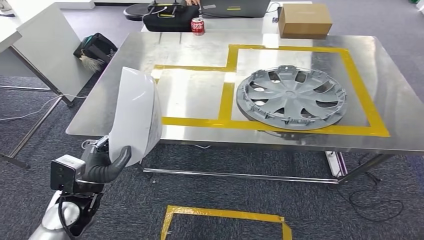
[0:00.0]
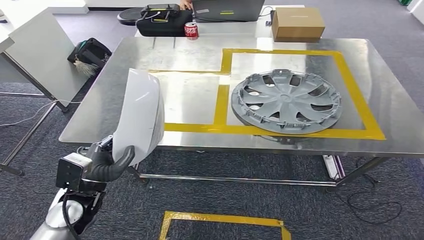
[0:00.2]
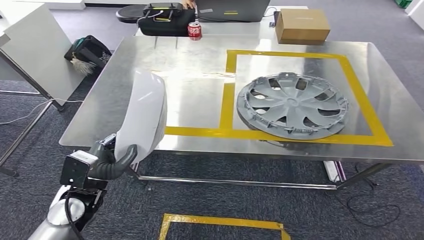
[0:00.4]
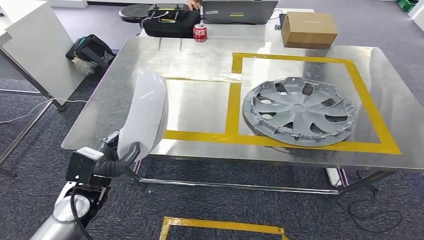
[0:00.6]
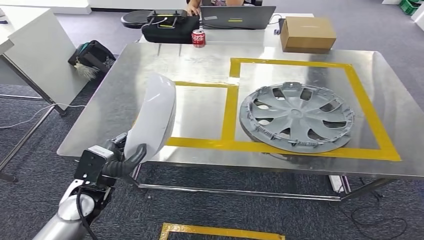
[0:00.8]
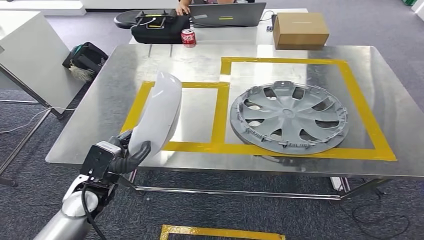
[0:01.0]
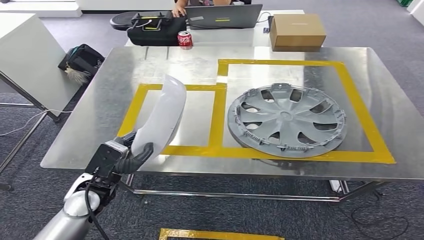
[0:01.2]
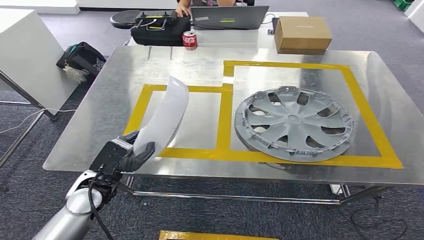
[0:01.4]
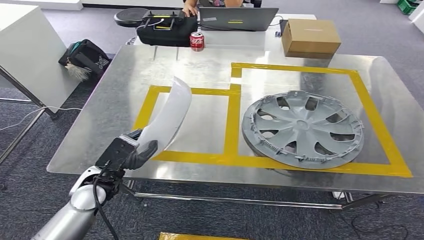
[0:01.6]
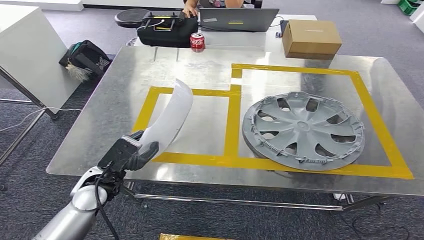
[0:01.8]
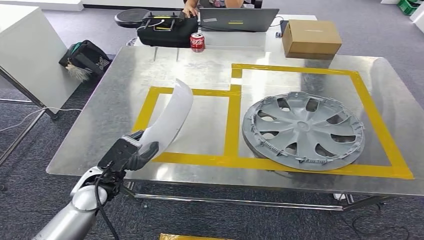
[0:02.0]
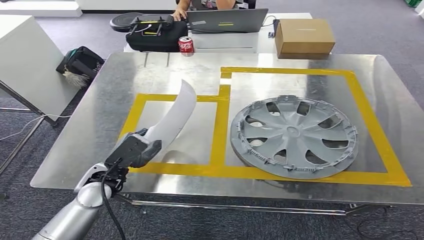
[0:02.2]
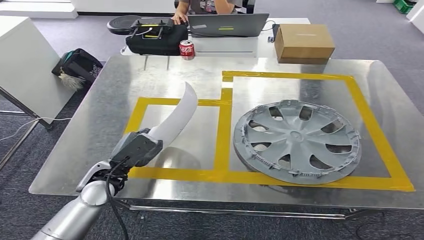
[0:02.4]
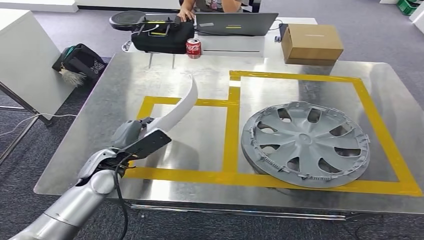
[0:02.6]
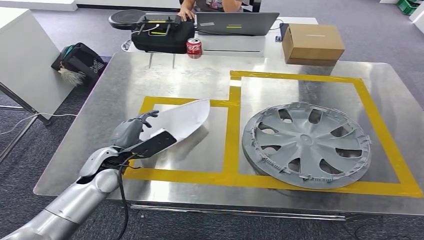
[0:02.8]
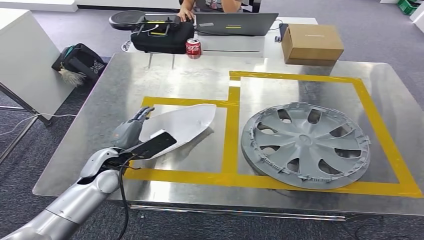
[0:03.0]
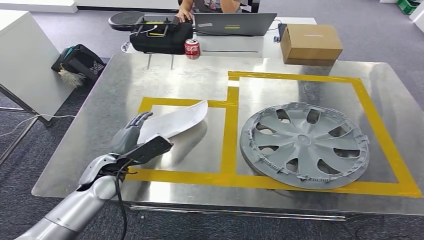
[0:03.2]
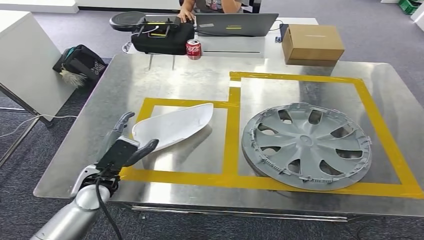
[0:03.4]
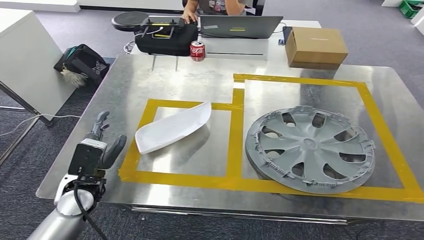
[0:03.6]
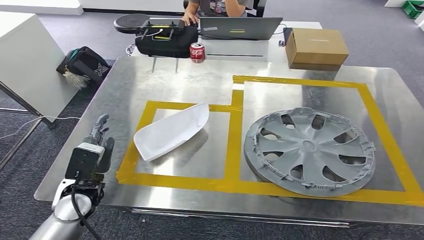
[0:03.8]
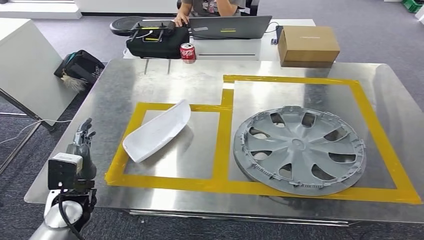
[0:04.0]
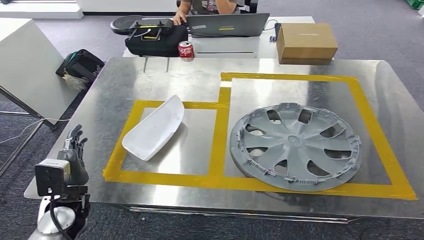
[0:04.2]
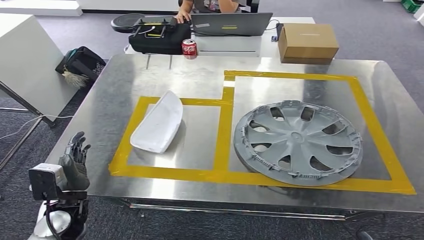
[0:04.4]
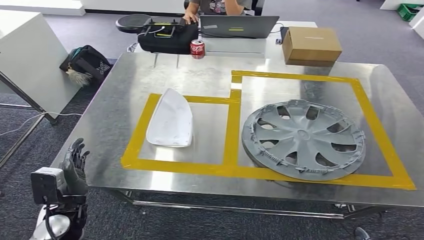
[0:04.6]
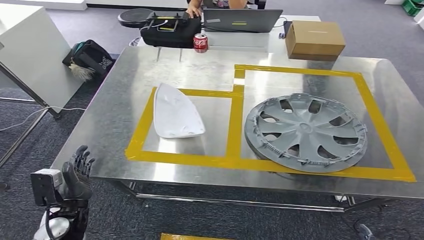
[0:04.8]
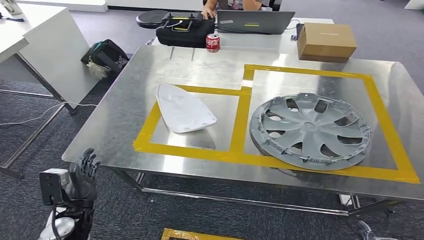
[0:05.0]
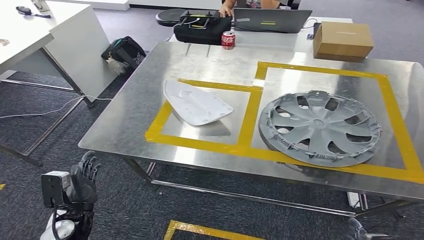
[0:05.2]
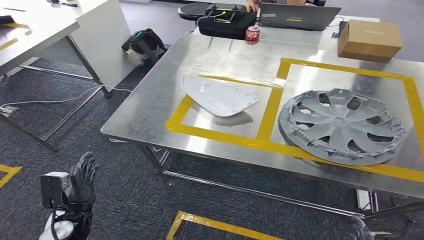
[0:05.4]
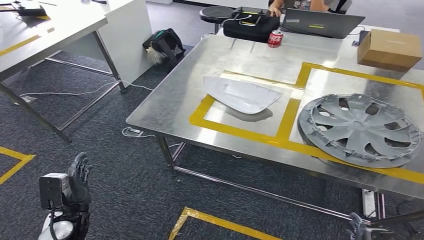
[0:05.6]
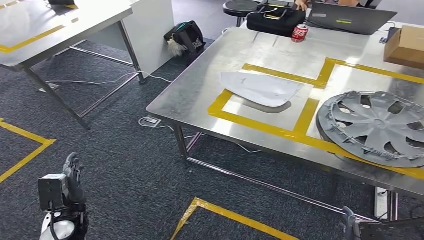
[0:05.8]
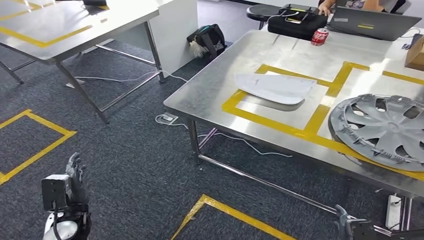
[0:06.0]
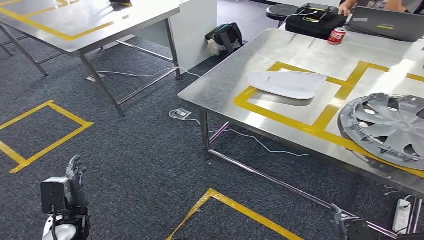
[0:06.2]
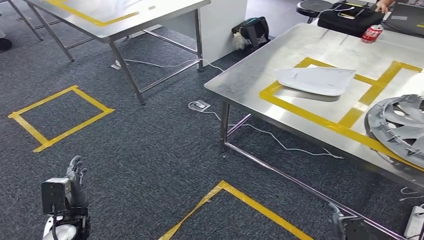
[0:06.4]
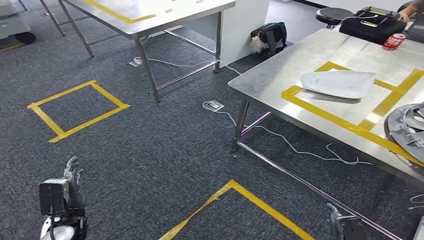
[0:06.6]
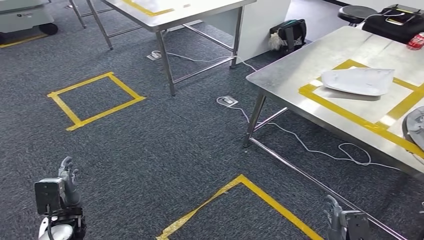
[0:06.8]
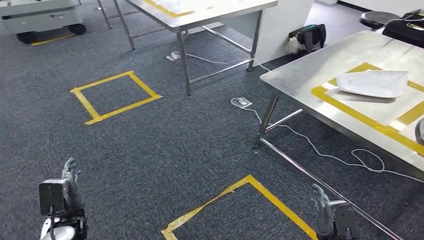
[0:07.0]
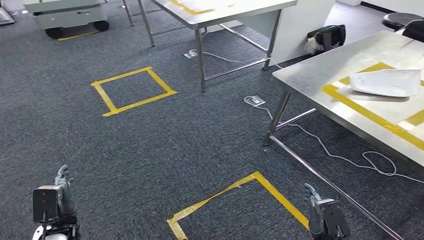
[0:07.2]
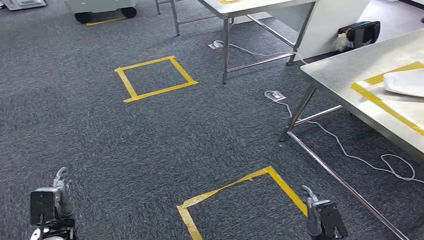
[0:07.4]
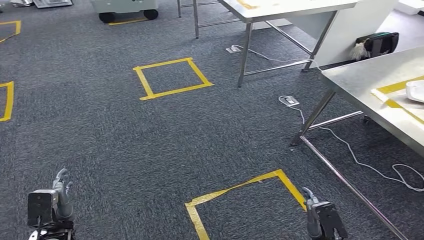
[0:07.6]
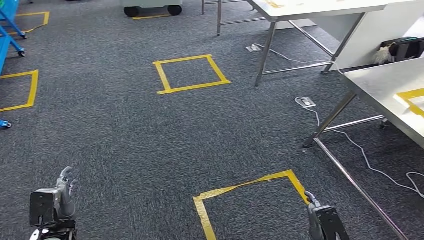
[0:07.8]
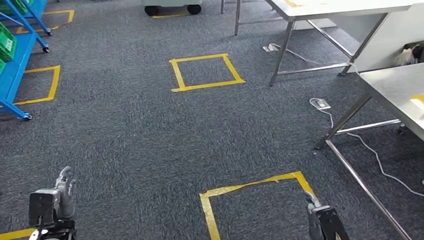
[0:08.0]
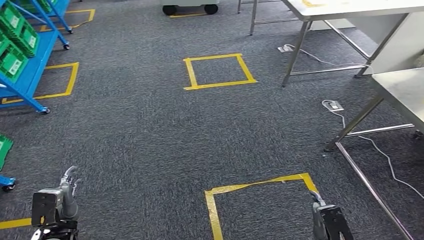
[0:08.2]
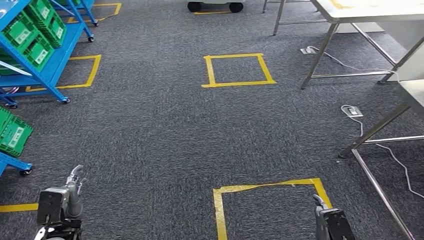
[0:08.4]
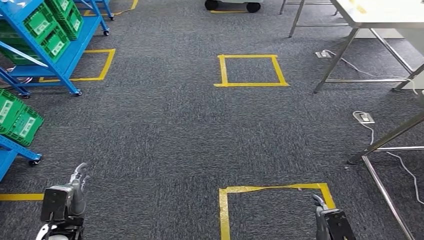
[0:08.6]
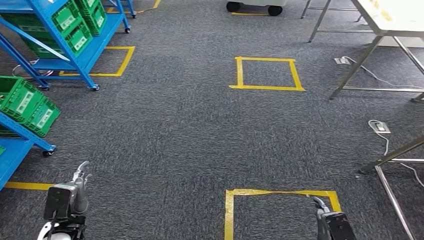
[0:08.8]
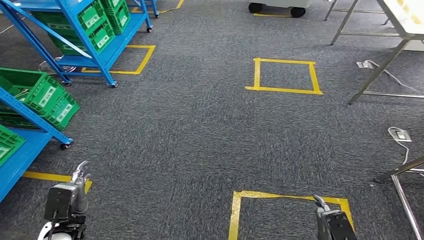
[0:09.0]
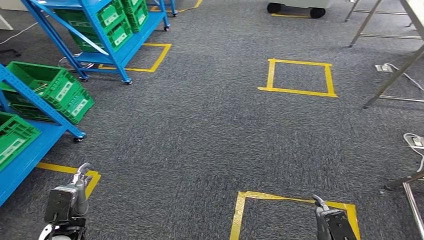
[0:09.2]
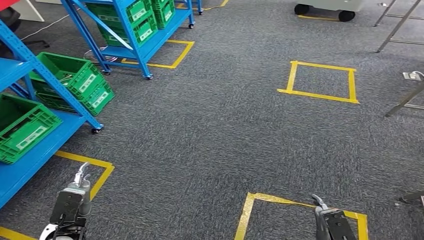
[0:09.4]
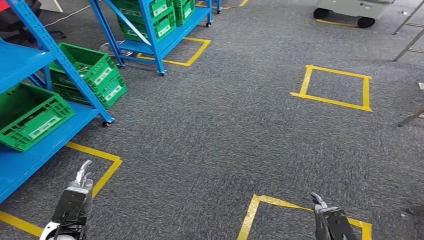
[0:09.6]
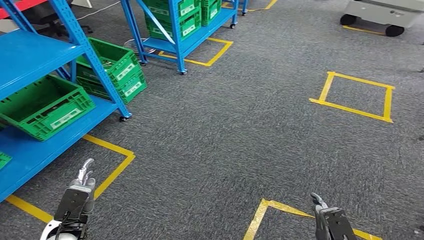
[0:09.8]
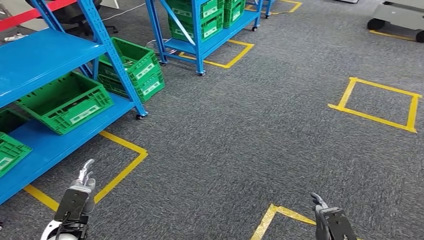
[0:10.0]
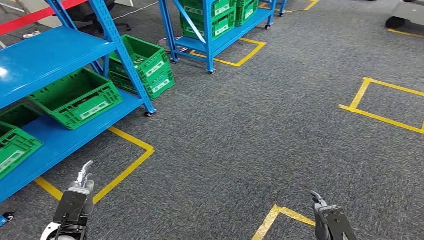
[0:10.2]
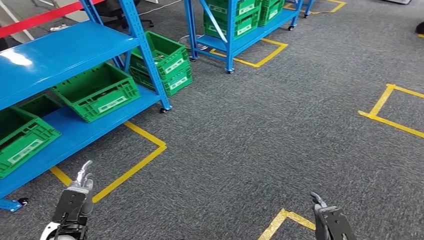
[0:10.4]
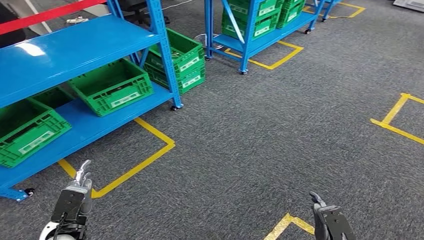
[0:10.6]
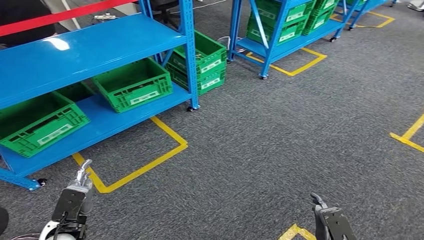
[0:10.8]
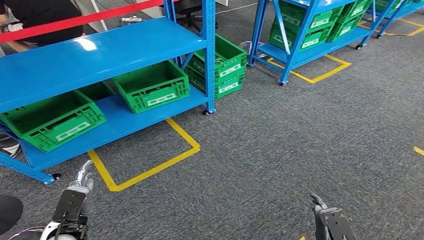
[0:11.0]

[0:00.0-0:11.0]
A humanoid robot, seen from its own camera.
Step, 0:00.0 to 0:04.8: Insert the small component into the corresponding slot on the workbench.

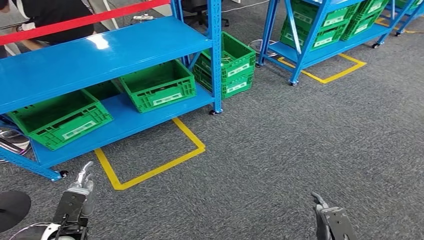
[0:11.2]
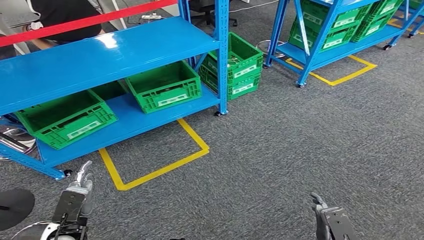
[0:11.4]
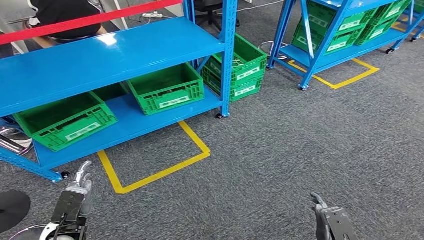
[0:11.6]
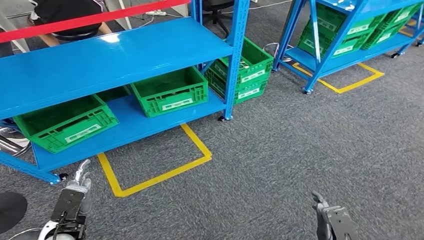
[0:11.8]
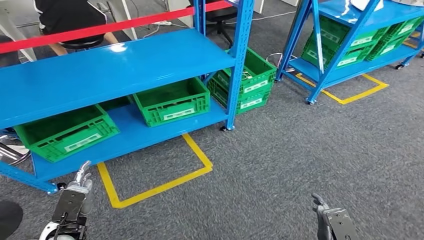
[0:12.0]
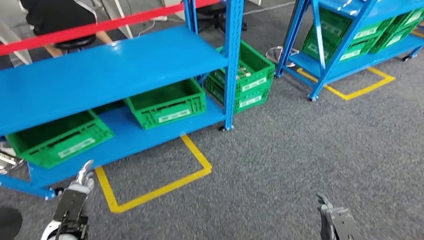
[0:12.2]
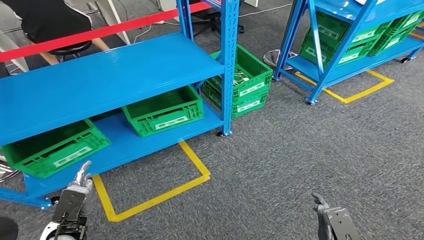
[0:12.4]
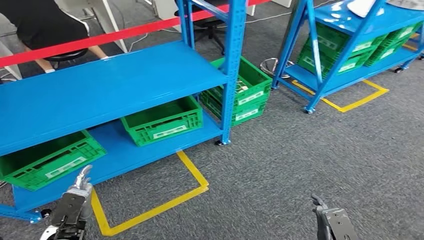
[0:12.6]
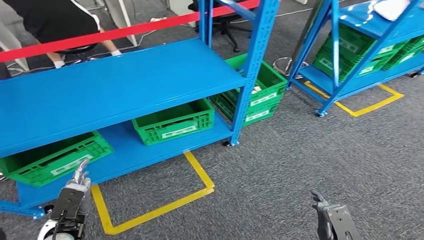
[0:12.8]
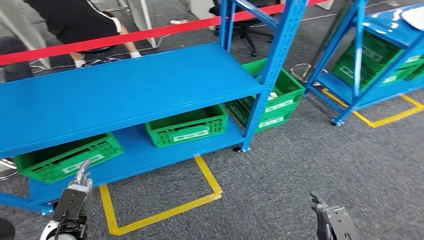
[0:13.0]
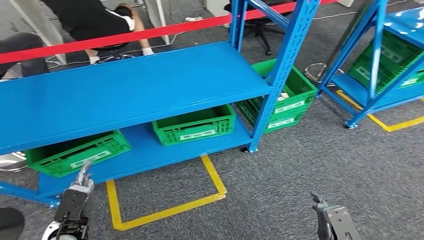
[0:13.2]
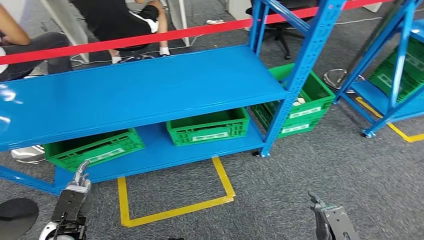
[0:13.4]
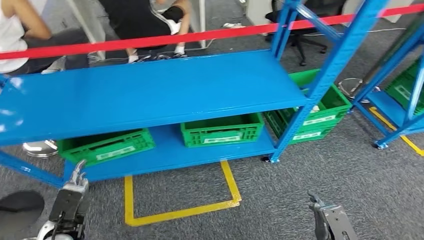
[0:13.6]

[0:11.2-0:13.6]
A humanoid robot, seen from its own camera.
Step, 0:11.2 to 0:13.6: Return to the initial position at the workbench.
